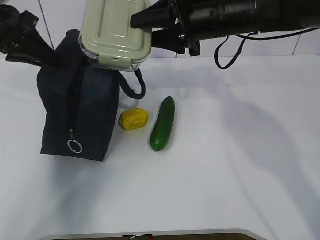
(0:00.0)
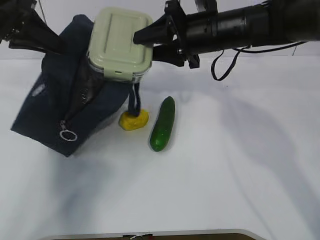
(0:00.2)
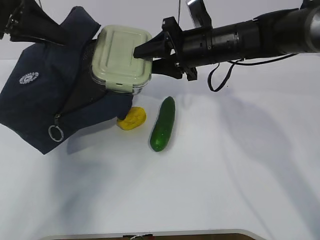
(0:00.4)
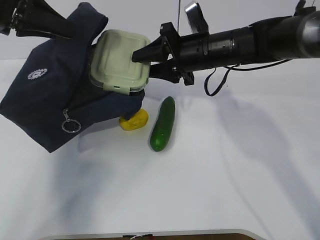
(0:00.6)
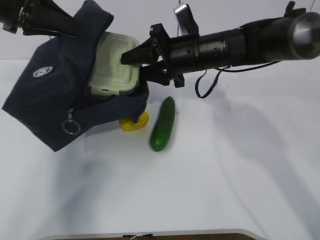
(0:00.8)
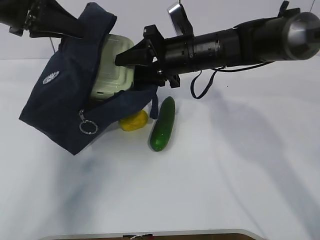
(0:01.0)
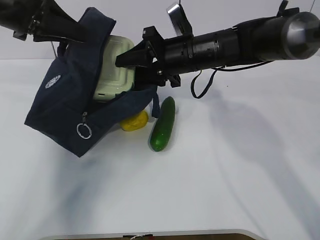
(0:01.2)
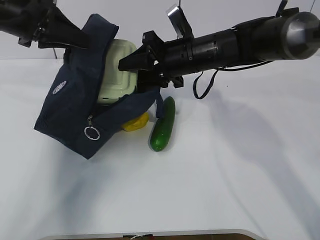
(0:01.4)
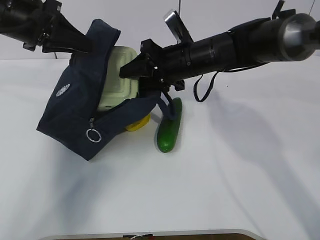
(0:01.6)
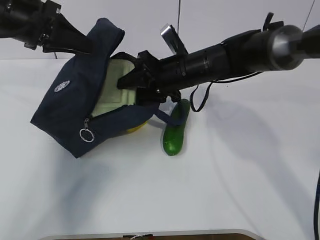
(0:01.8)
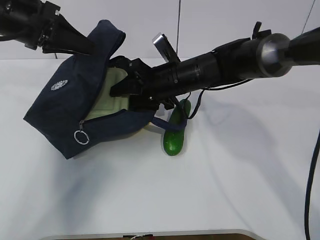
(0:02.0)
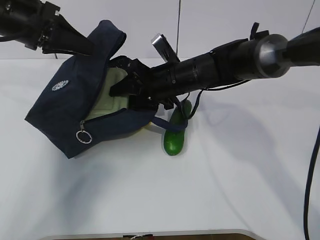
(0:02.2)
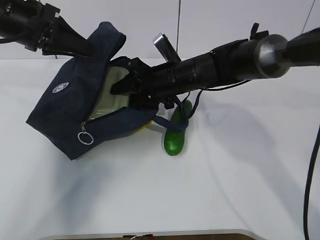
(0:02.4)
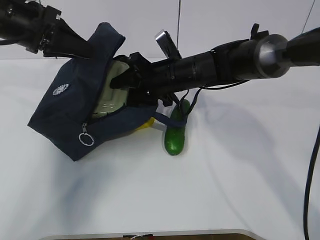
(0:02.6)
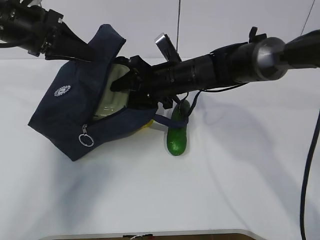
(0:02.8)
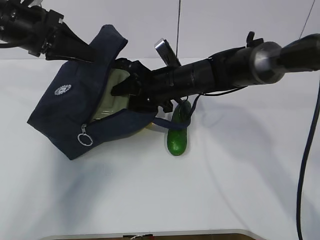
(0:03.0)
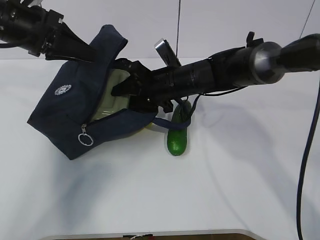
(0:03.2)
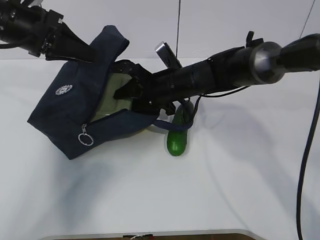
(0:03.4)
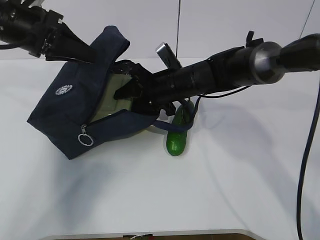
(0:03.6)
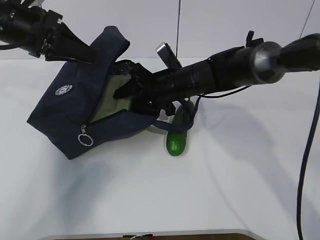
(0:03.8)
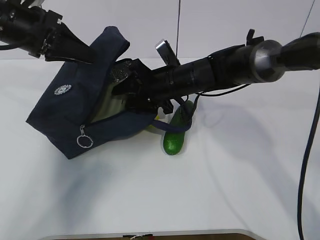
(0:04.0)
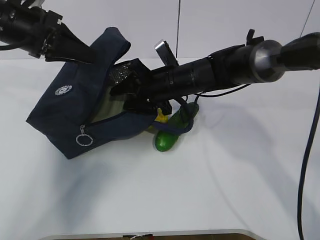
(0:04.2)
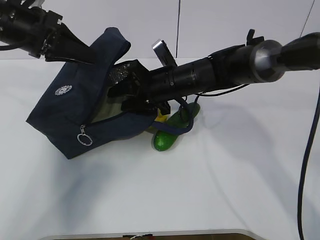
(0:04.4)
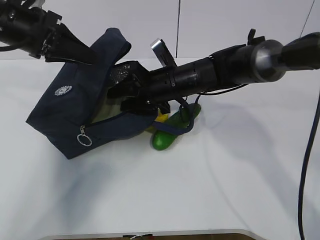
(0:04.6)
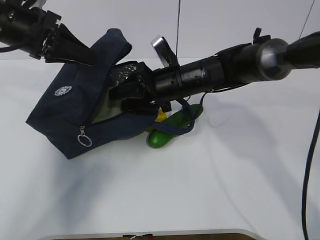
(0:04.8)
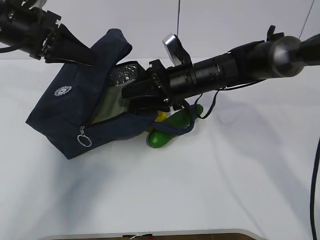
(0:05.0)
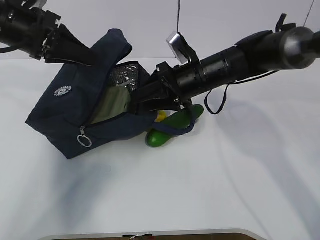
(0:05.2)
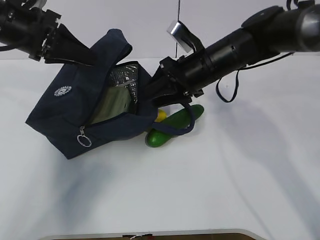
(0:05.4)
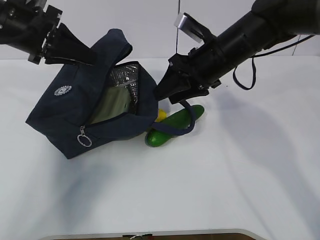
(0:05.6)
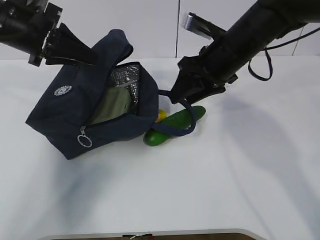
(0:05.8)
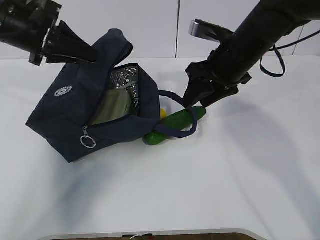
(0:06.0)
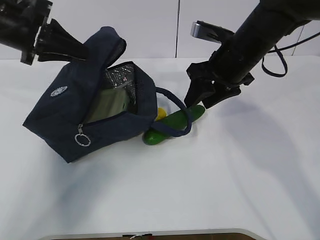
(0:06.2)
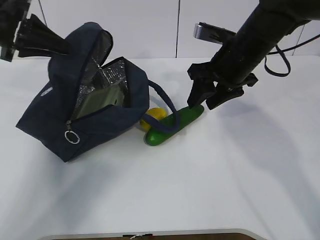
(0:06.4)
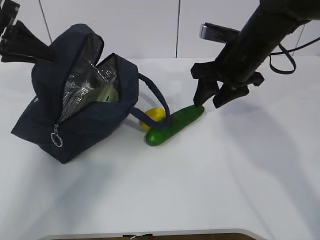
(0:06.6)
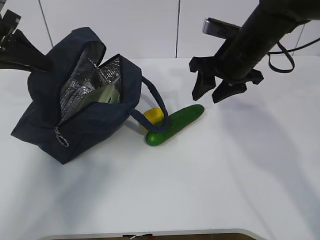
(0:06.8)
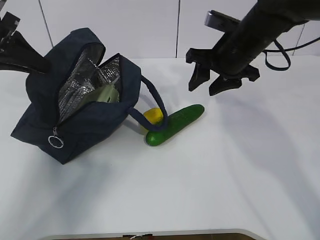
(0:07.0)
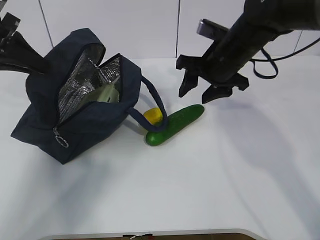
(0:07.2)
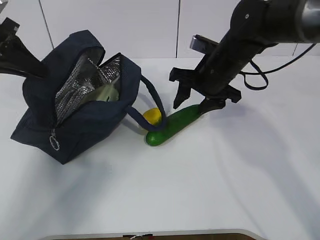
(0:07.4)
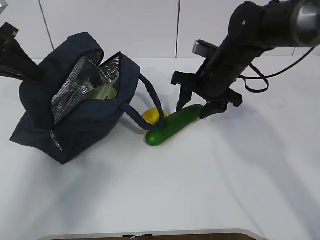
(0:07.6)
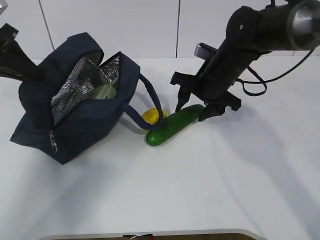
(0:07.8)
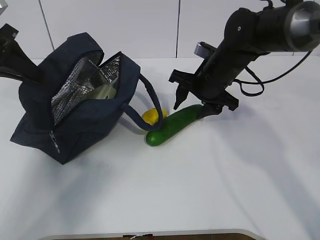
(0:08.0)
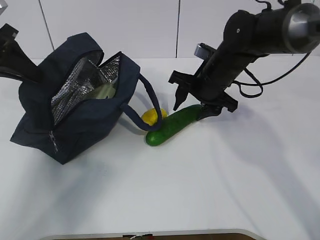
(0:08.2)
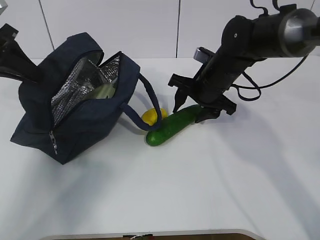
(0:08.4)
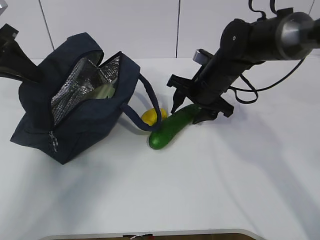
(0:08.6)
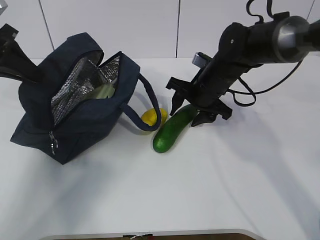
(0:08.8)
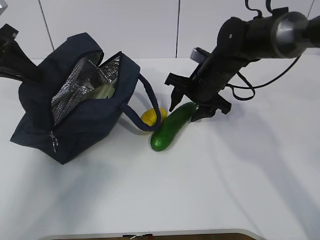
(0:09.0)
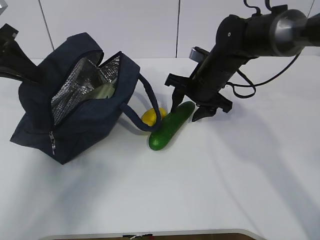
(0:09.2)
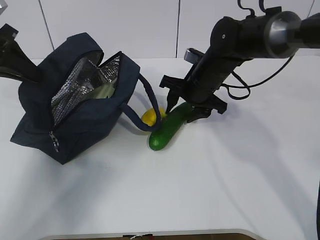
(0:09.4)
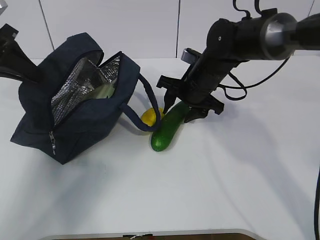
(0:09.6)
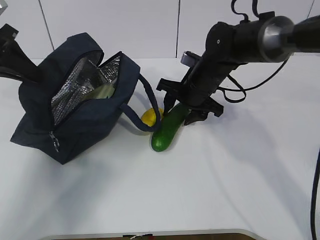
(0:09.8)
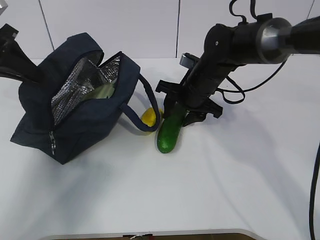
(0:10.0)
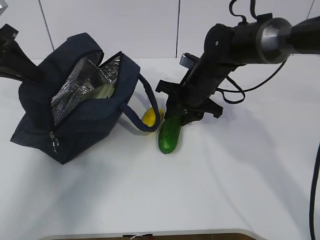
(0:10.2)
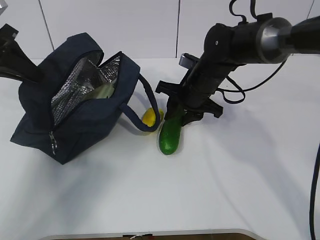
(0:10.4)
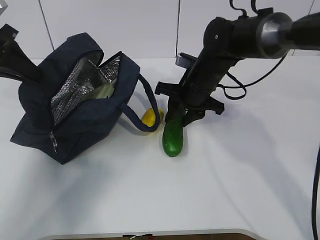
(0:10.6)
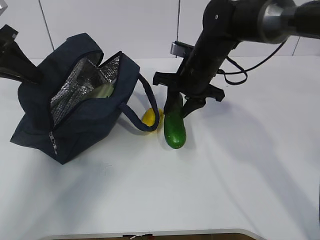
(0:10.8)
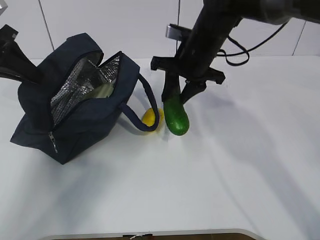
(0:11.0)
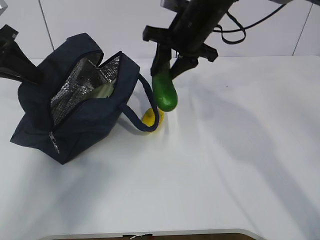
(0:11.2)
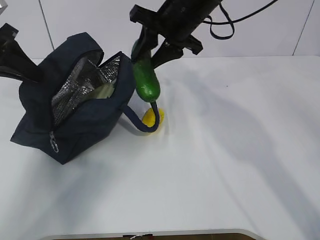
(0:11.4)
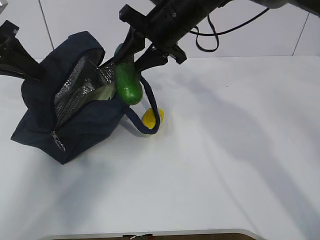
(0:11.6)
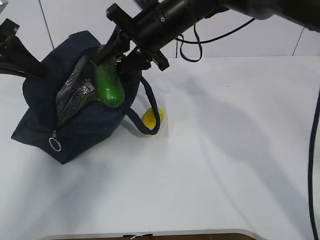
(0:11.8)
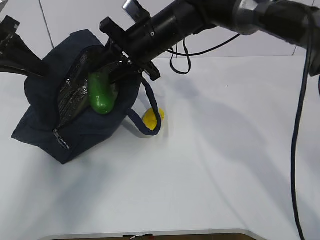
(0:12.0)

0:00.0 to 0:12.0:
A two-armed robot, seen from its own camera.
Step, 0:00.0 to 0:01.6: Place it into the bag with your right hand.
Step, 0:01.8 to 0:06.8: Grab the cucumber with your right hand.
Step, 0:07.0 to 0:09.2: Place it into the bag with your right hand.
Step, 0:09.4 to 0:12.0: Grab the lemon with your right hand.
0:00.0 to 0:01.6: The right gripper is displaced downward by roughly 10 cm.
0:01.6 to 0:03.0: The right gripper ends up some 5 cm from where it was.
0:03.0 to 0:04.4: The grippers move only a little.
0:04.4 to 0:06.0: The right gripper heads to the right and upward, covering roughly 10 cm.
0:06.0 to 0:07.6: The right gripper moves roughly 5 cm, while the left gripper heads to the left, covering some 10 cm.
0:07.6 to 0:10.4: The grippers stay close to where they were, moving slightly.
0:10.4 to 0:12.0: The right gripper moves upward and to the left, about 10 cm.

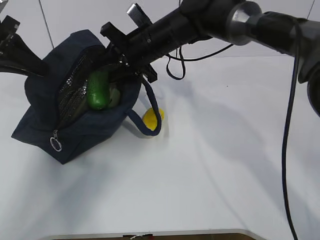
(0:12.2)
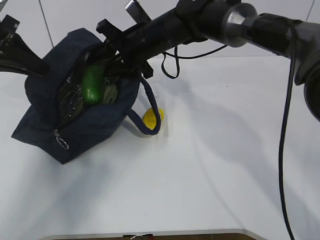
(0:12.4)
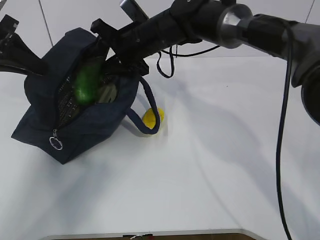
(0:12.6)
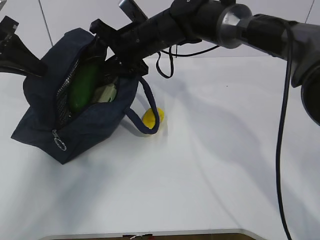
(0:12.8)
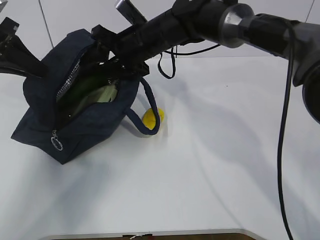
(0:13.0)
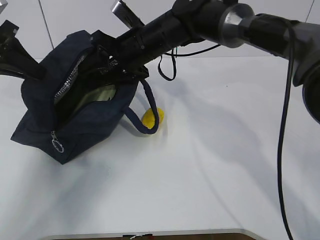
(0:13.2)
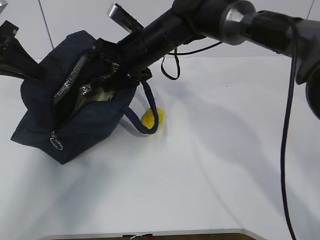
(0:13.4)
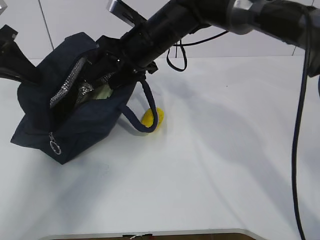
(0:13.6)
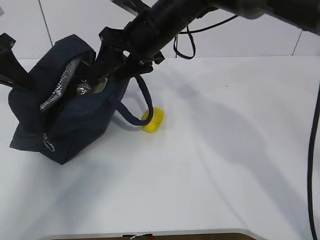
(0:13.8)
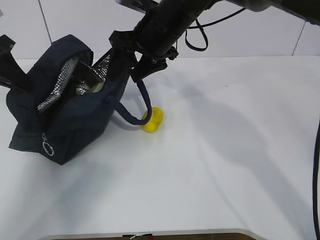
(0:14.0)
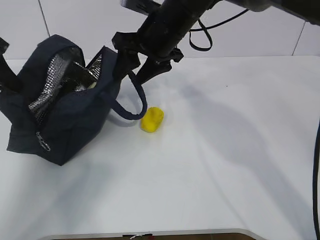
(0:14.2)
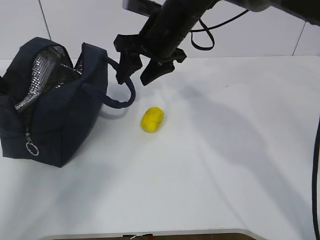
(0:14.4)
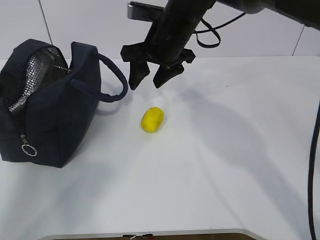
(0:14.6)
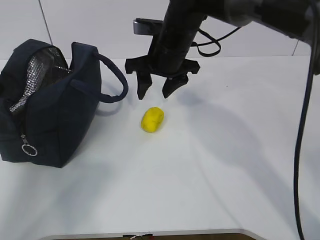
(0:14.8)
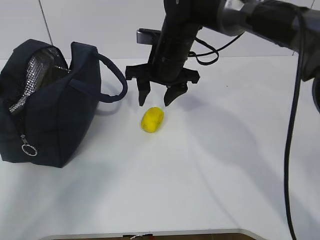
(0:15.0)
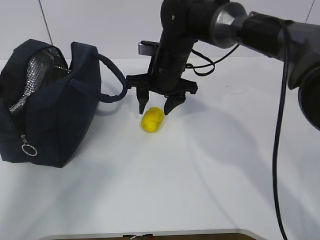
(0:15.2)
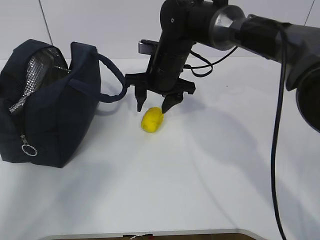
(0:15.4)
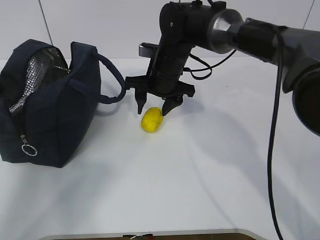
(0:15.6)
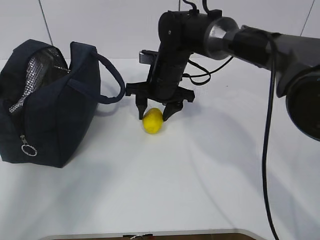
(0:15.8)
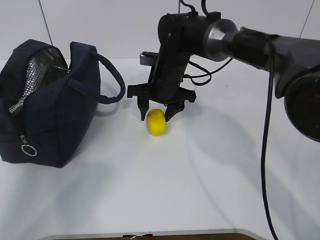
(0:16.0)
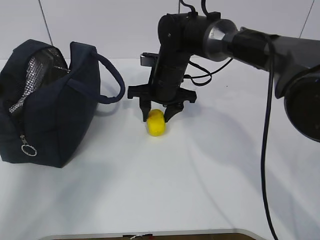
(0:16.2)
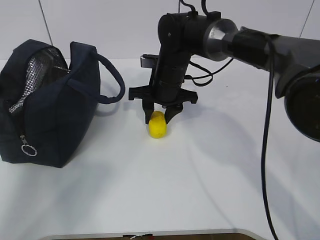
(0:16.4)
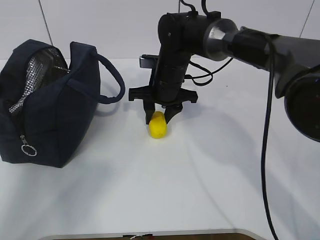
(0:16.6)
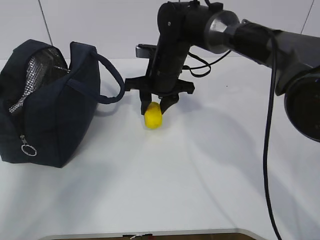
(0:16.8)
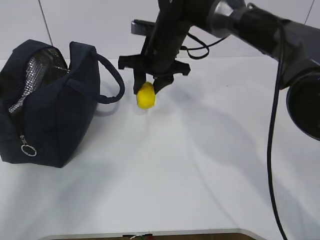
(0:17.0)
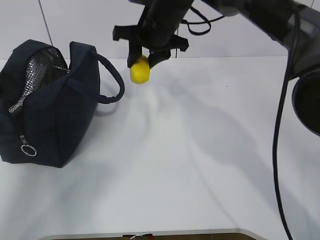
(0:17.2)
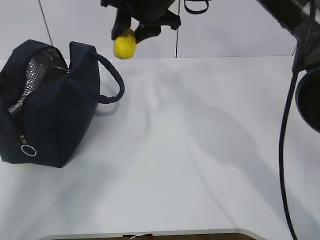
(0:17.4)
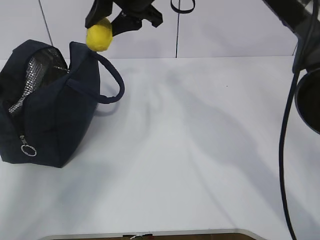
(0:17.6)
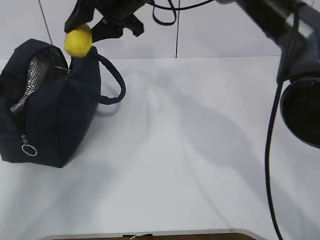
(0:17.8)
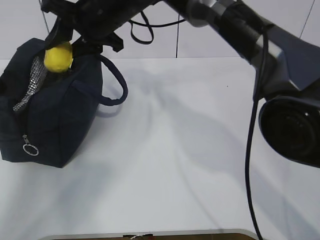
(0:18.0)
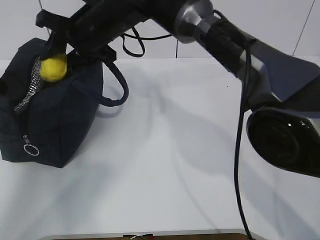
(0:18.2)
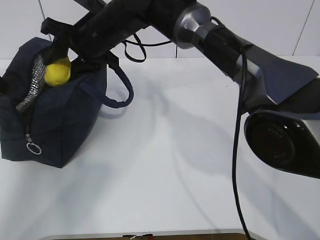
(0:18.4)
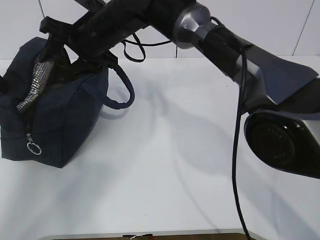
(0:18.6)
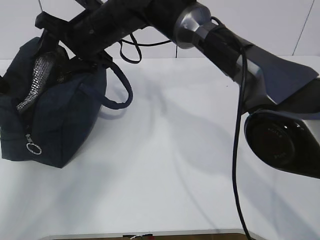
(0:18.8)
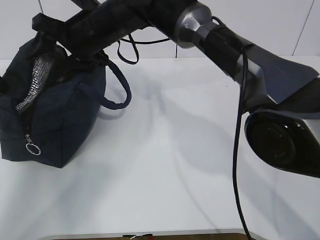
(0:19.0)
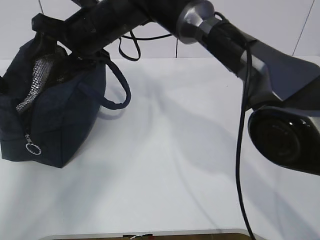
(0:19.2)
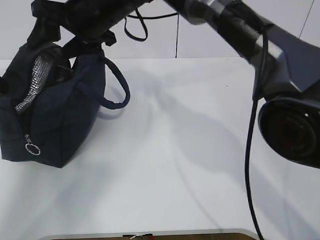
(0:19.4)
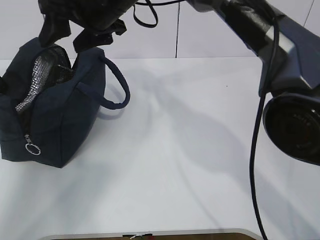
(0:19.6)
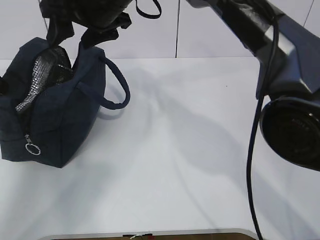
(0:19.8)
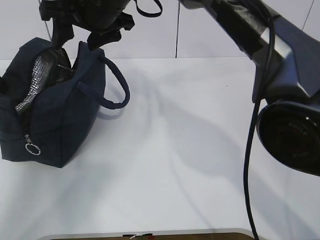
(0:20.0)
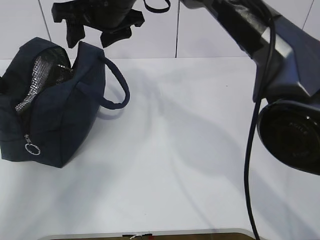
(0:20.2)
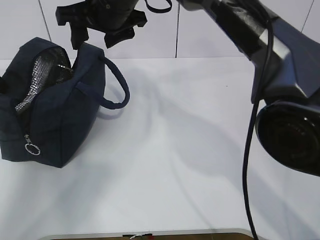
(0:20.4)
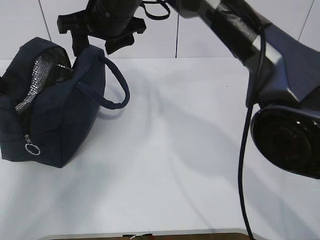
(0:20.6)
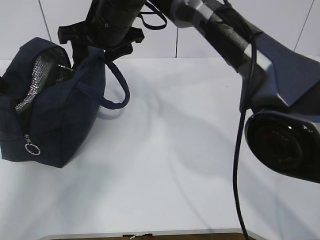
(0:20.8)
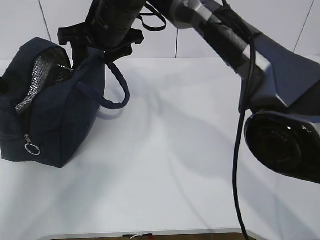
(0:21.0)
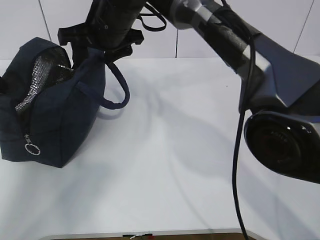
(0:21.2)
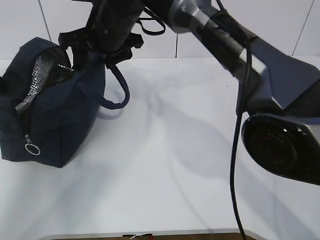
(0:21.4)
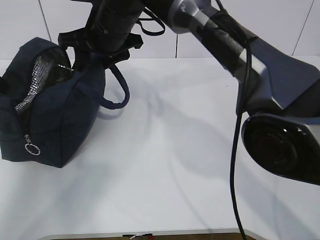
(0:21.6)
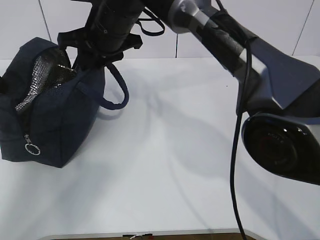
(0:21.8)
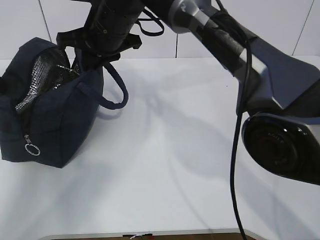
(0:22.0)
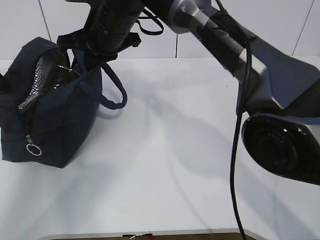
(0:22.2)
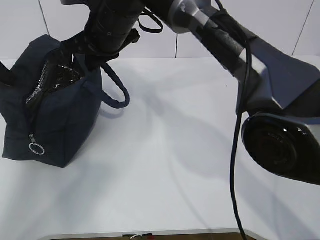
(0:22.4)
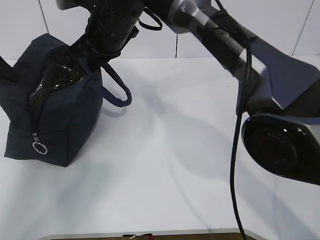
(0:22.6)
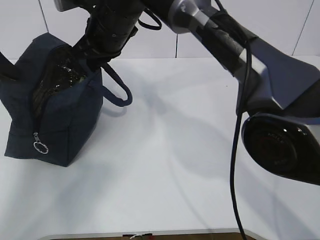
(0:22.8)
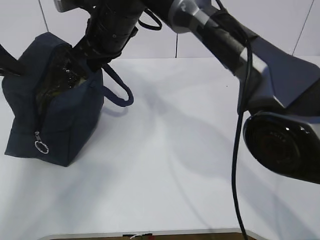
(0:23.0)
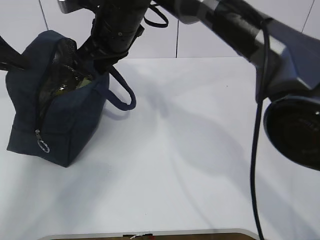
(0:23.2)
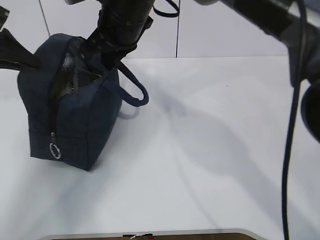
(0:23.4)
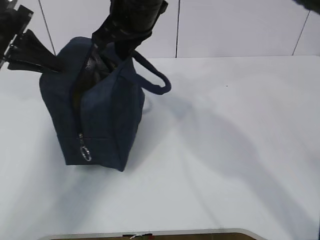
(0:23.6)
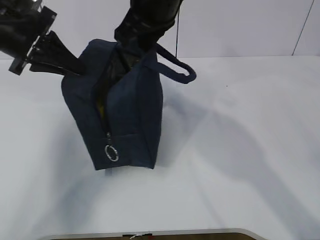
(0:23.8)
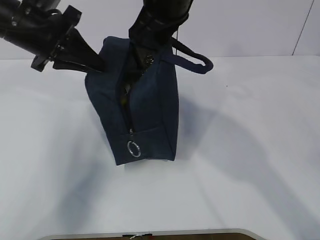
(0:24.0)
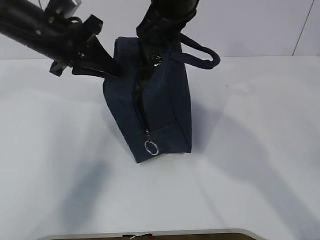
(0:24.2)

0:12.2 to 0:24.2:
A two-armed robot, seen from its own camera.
Step, 0:13.8 to 0:16.6: Grab the lunch bag with your right hand.
Step, 0:16.8 to 0:19.6: Move the lunch bag to the right.
0:12.2 to 0:13.8: The right gripper ends up some 5 cm from where it was.
0:13.8 to 0:15.2: The right gripper is displaced downward by about 5 cm.
0:15.2 to 0:16.6: There are only small adjustments of the grippers.
0:16.6 to 0:18.2: The right gripper travels upward and to the left by approximately 15 cm.
0:18.2 to 0:19.8: The right gripper changes place by roughly 5 cm, and opens its fingers.
0:21.2 to 0:22.6: The right gripper closes up.
0:22.6 to 0:24.2: The right gripper goes some 10 cm to the right and upward. Meanwhile the left gripper moves to the right, about 15 cm.
